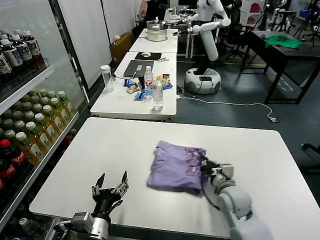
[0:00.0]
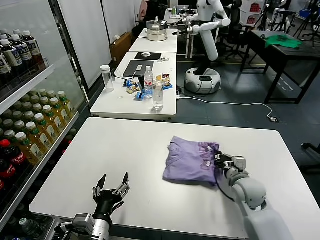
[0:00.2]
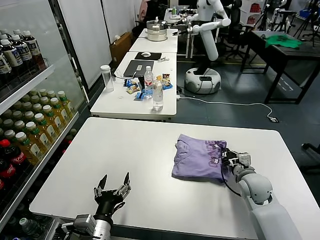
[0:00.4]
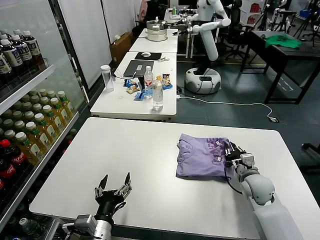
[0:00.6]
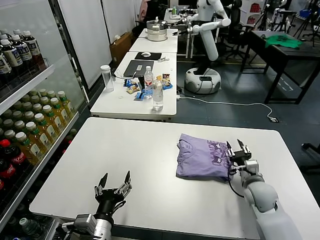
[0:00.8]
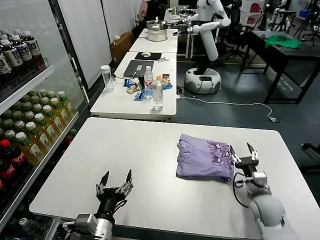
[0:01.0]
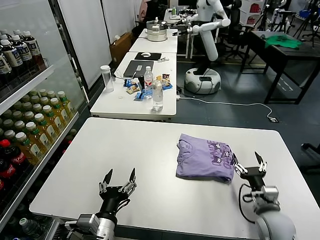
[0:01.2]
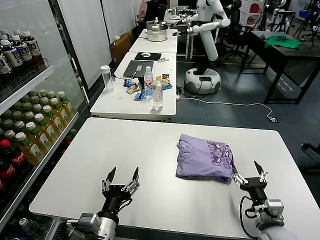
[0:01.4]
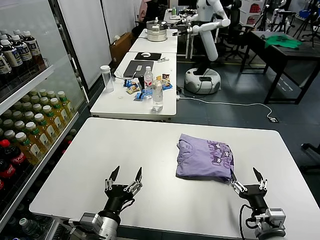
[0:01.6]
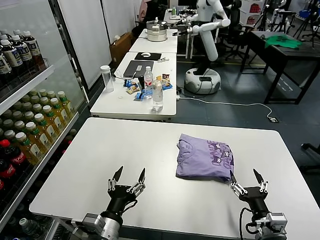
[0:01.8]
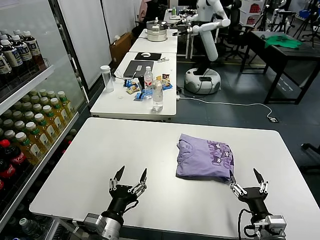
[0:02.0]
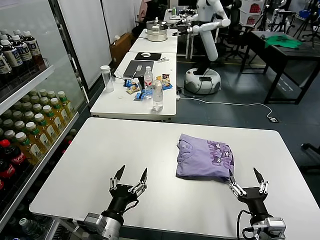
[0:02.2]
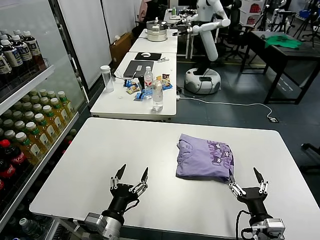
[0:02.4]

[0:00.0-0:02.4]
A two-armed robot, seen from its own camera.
Task of the whole recording: fold and organize the clothes.
0:00.0 to 0:01.2: The right gripper goes roughly 10 cm to the right, and opens its fingers.
0:01.2 to 0:02.4: The right gripper goes approximately 10 cm backward.
